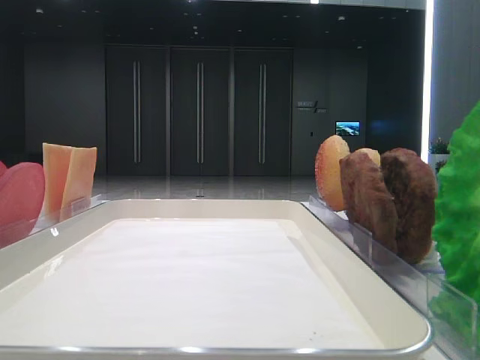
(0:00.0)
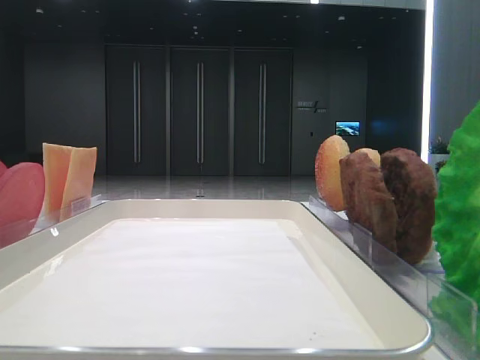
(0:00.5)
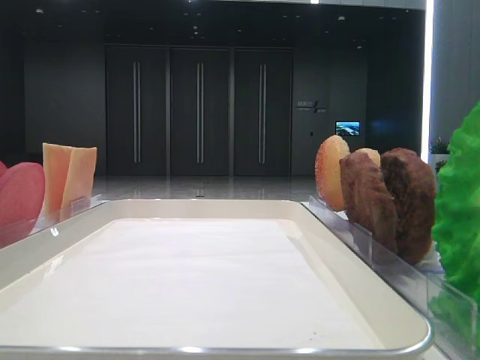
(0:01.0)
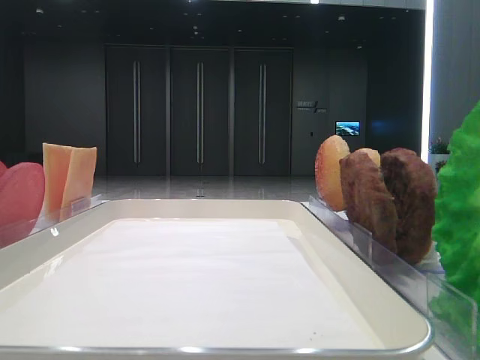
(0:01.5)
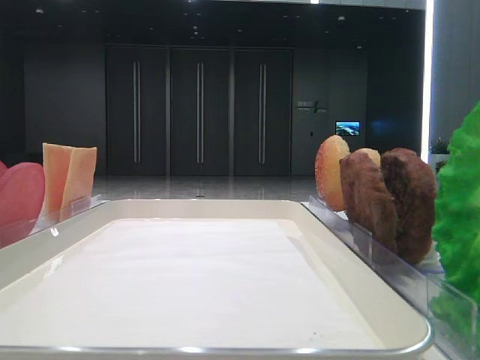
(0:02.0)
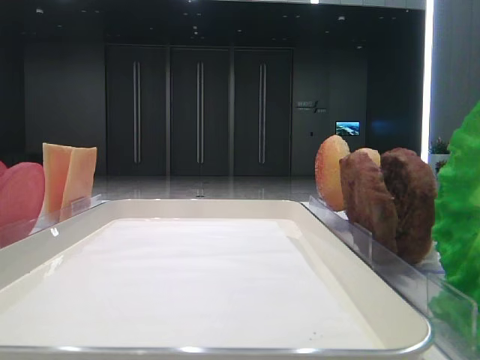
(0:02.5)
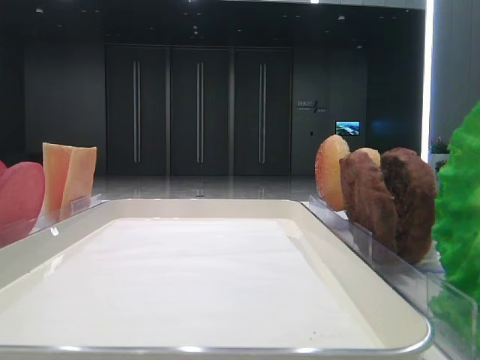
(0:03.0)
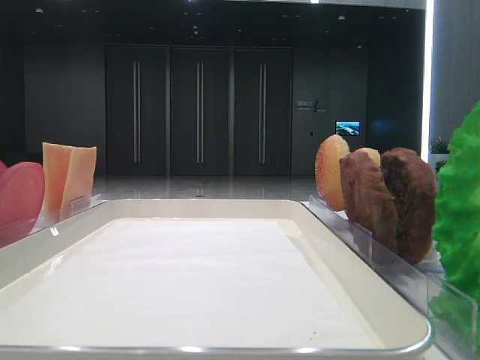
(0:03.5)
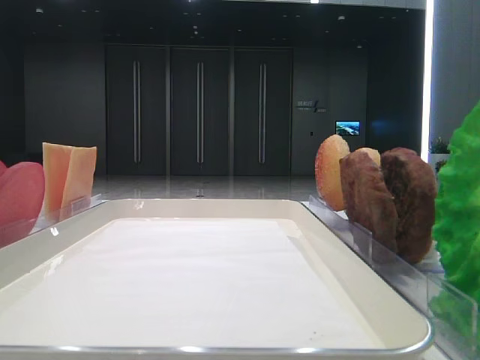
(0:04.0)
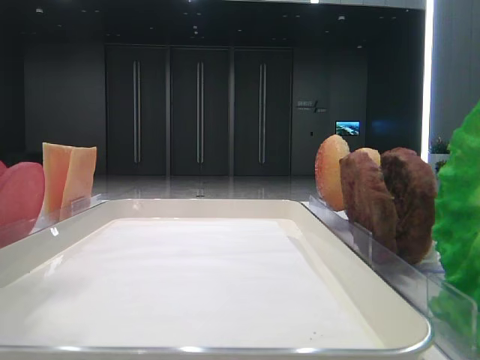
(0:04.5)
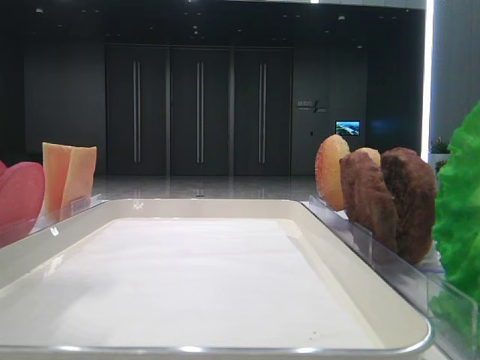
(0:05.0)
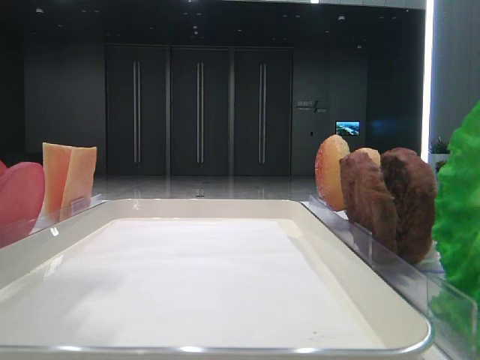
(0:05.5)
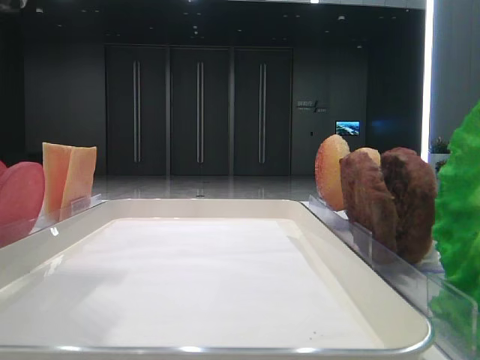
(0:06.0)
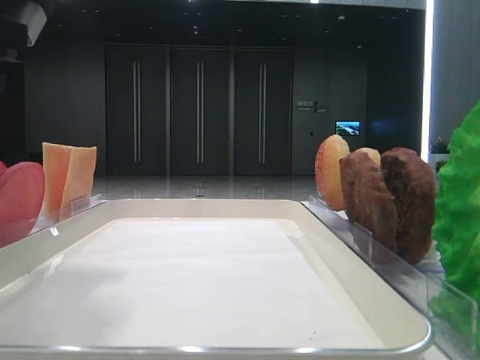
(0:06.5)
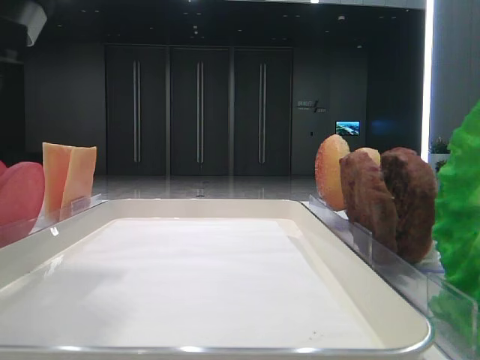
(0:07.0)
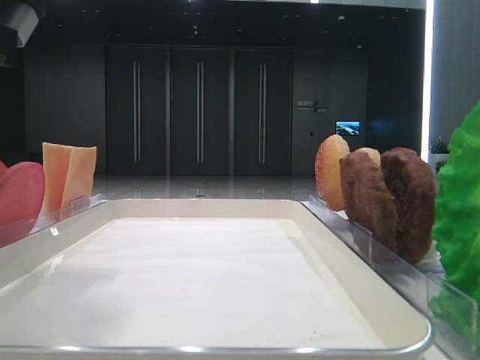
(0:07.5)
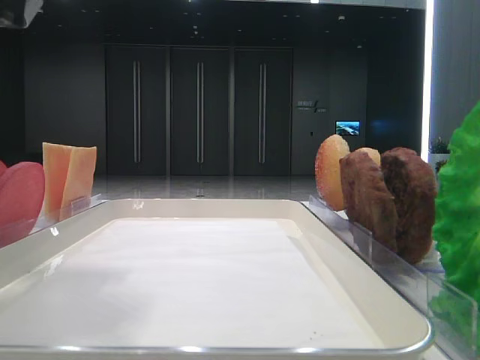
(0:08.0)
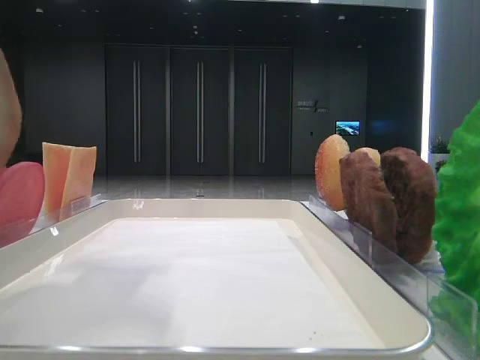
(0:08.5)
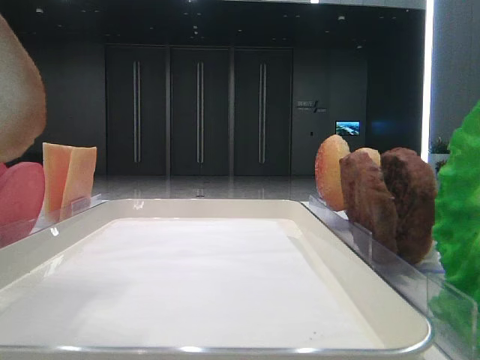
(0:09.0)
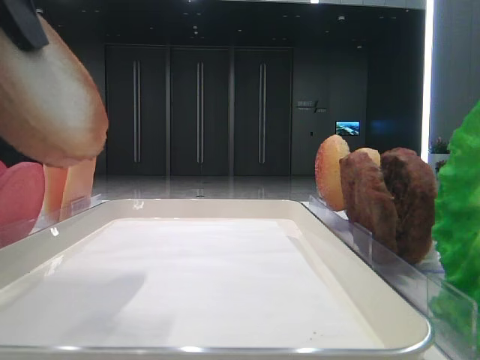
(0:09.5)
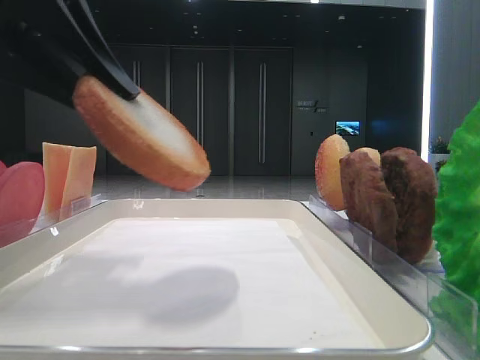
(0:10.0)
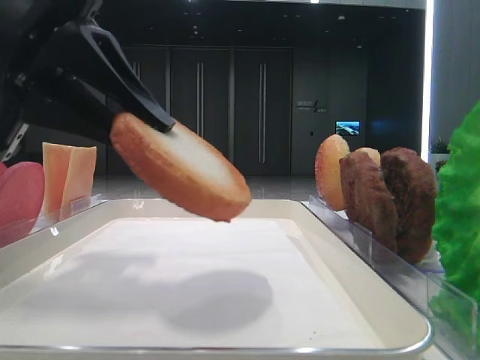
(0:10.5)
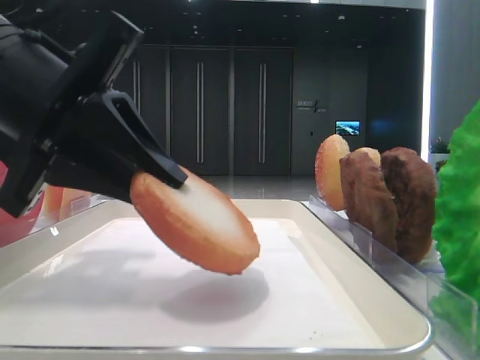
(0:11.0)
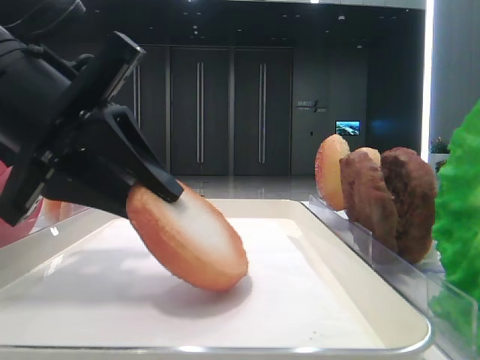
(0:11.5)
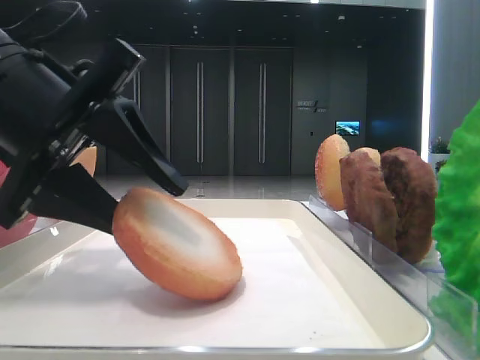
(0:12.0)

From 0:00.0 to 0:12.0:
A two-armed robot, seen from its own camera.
Step, from 0:00.0 to 0:04.5: Pick up the bottom bread with the left hand.
From 0:04.0 to 0:06.0: The left gripper goes approximately 15 cm to the right and downward.
From 0:10.0 to 0:12.0: The left gripper travels downward by approximately 10 cm, and opens.

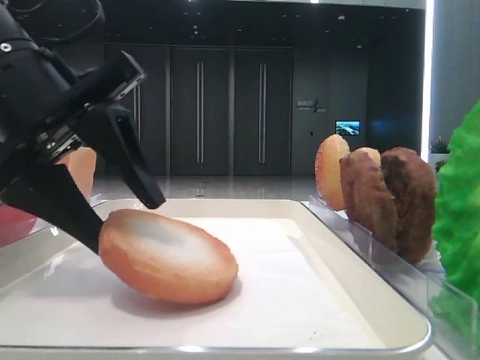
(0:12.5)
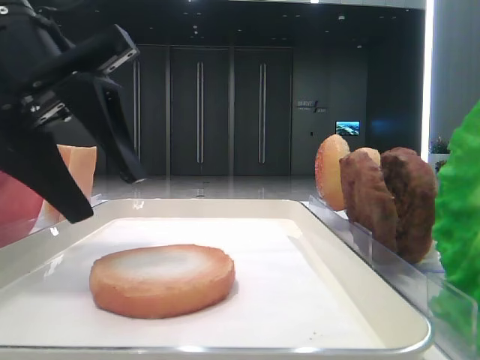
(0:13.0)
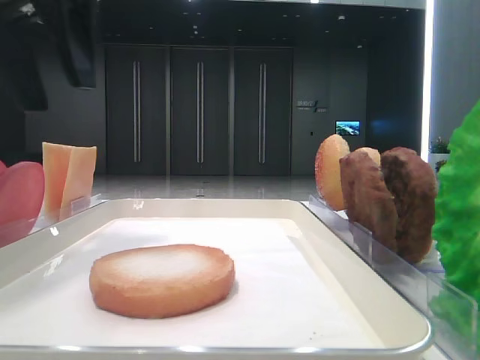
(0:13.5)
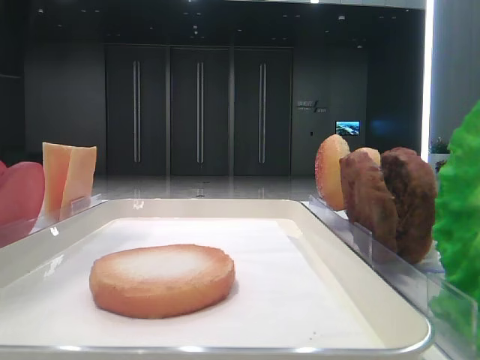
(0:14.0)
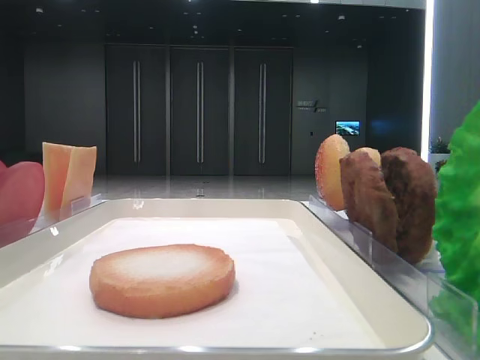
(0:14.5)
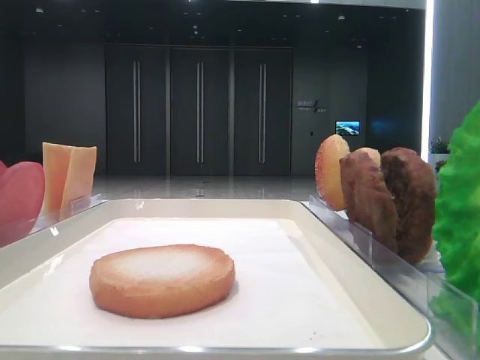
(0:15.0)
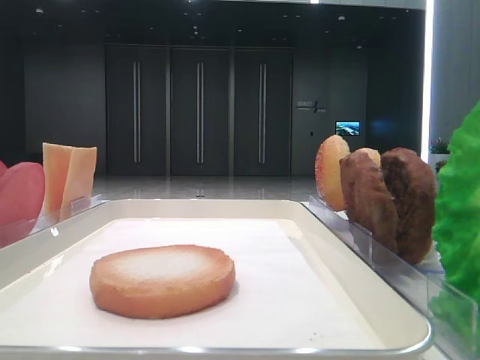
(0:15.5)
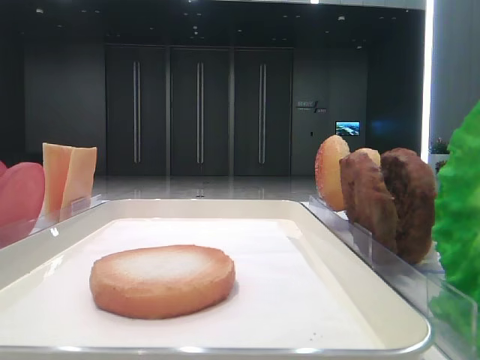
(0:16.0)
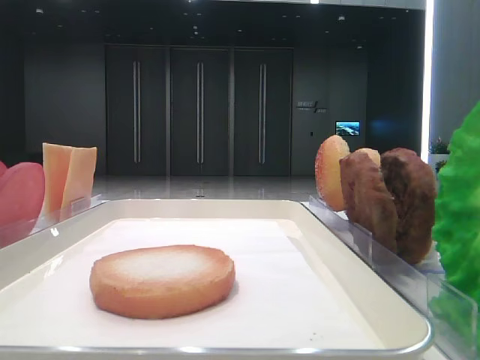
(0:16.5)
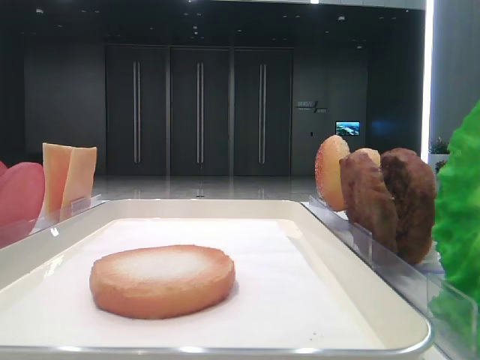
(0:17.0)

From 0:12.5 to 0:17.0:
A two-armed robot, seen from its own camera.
From 0:12.5 to 0:14.5: The left gripper moves upward and to the left, approximately 20 cm.

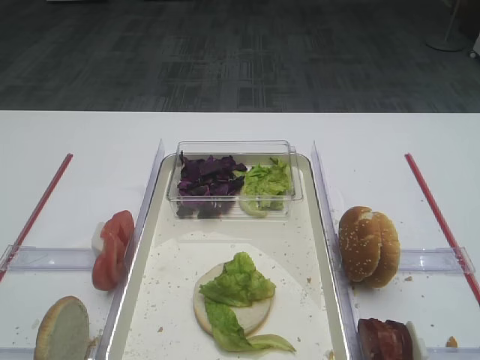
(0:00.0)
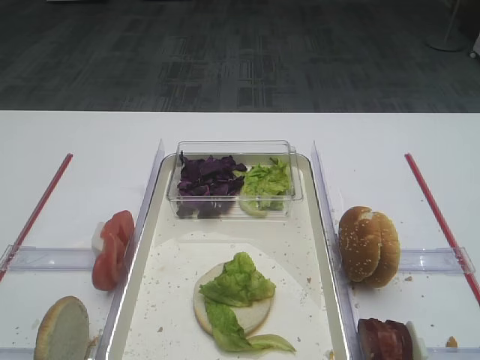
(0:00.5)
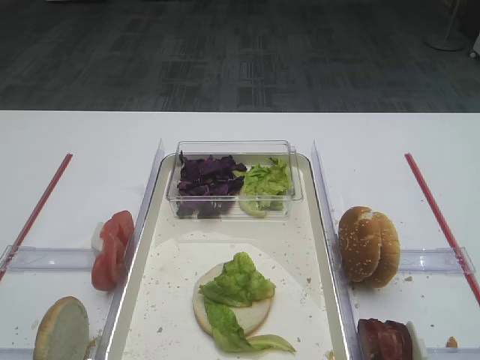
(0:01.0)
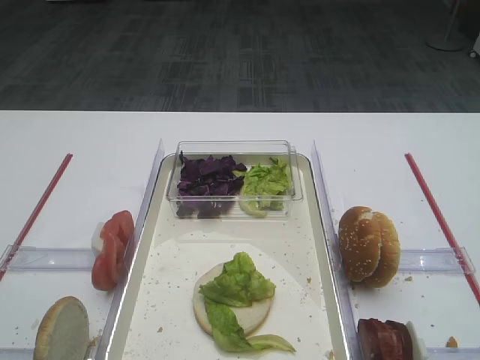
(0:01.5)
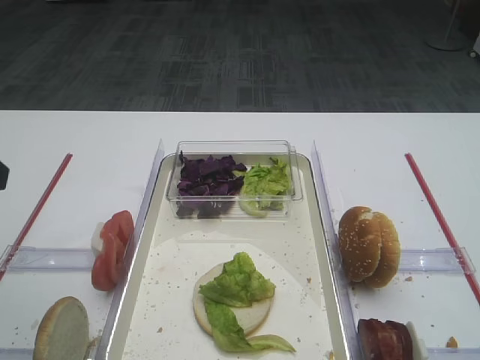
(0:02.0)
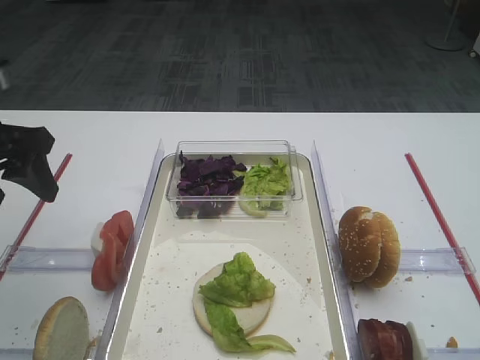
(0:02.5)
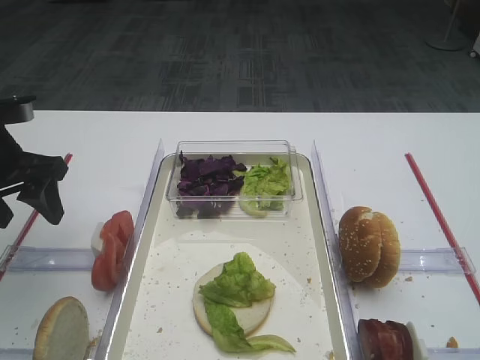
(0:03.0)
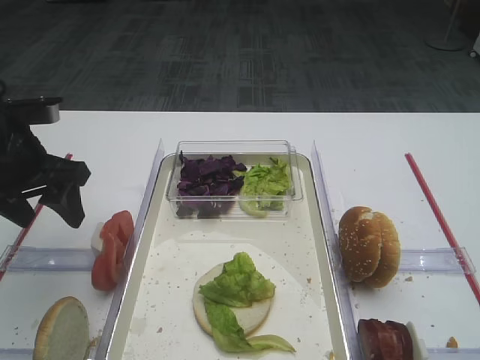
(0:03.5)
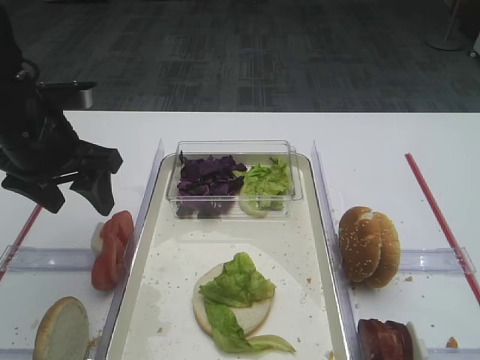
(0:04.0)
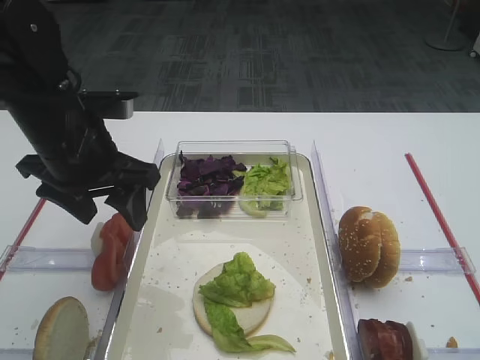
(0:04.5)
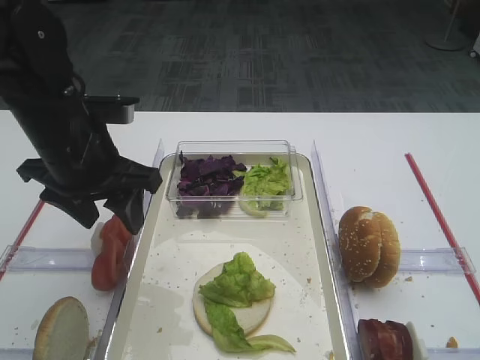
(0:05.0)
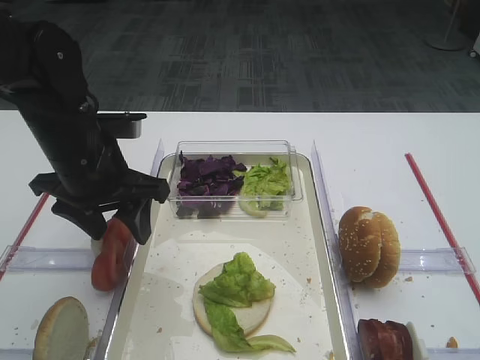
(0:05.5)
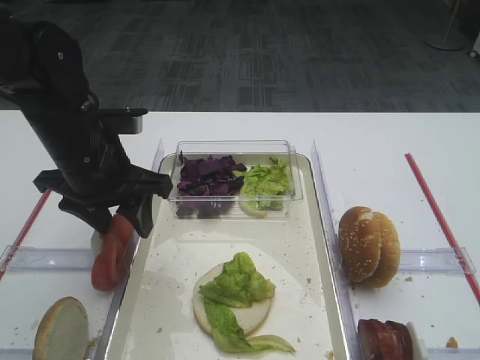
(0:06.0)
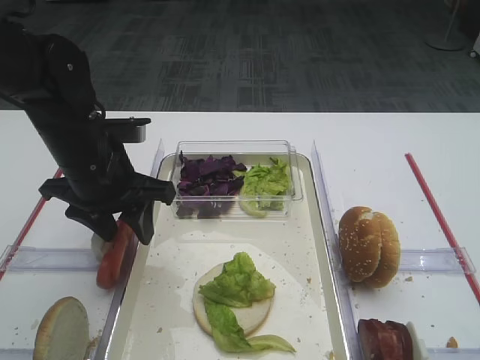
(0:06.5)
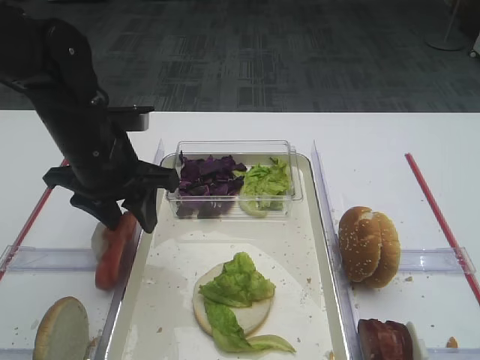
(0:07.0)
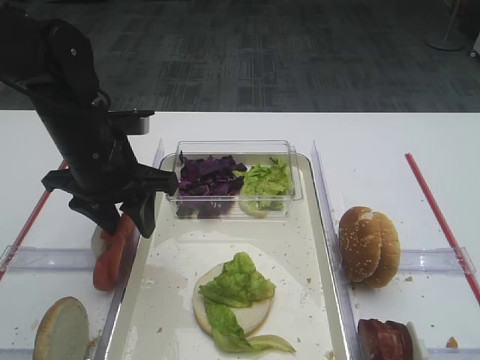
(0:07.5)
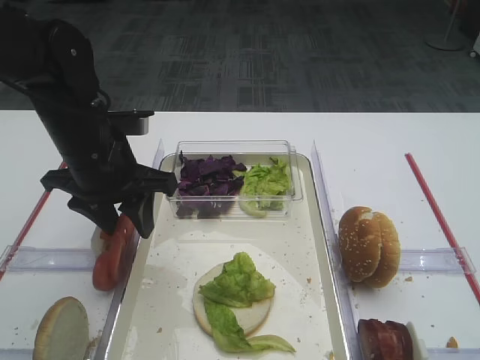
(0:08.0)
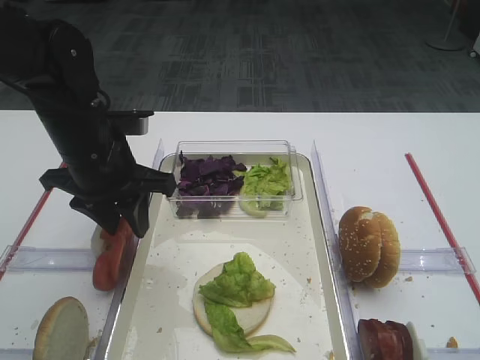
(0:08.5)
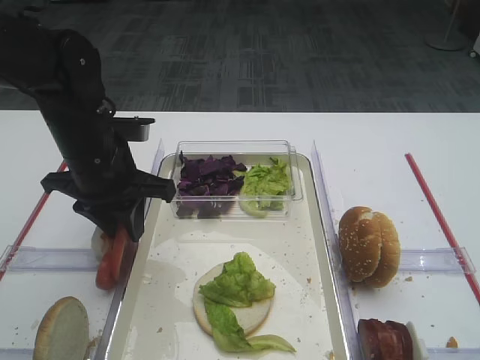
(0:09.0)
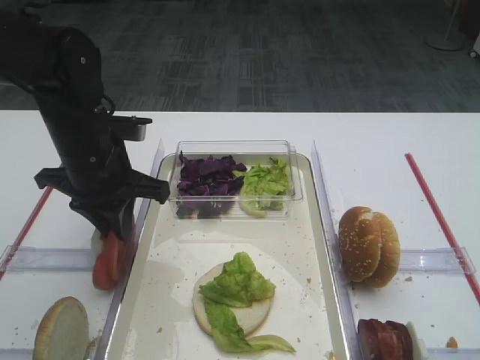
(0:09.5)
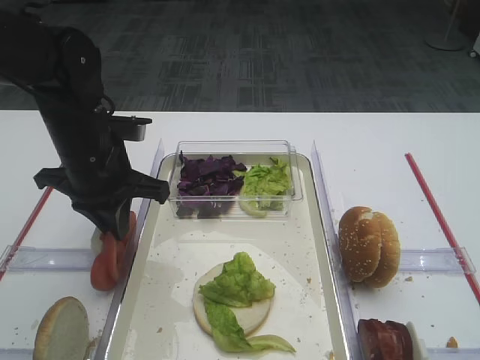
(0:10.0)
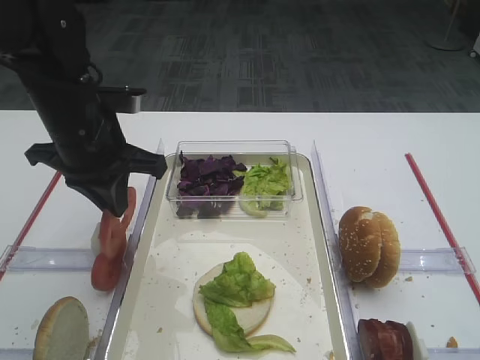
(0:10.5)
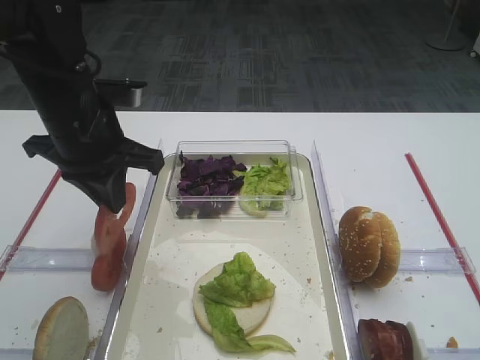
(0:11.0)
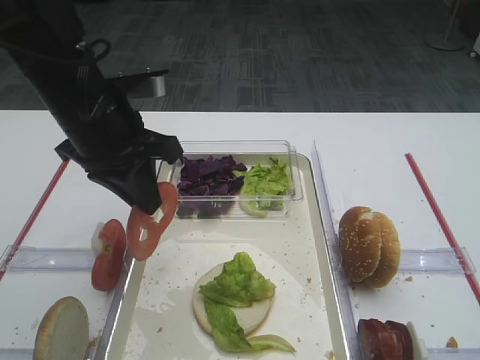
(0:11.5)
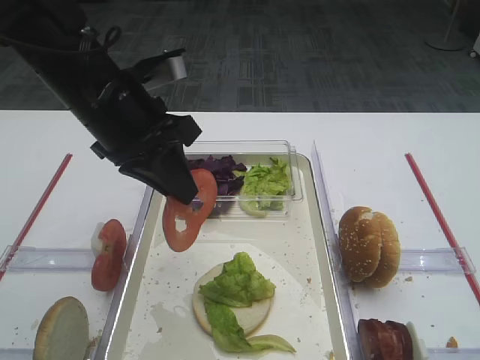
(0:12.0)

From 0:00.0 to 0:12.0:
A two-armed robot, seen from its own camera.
Step, from 0:00.0 to 0:10.5: Pick up the tomato slice with the left gripper.
From 0:02.0 to 0:04.0: The left gripper shifts approximately 15 cm forward, downward and to the right.
From 0:04.0 to 0:06.0: The left gripper goes approximately 5 cm to the right.
From 0:06.0 to 0:08.0: The two grippers keep their place.
From 0:08.0 to 0:10.0: The left gripper closes.
From 0:10.0 to 0:12.0: The left gripper goes some 5 cm upward.
